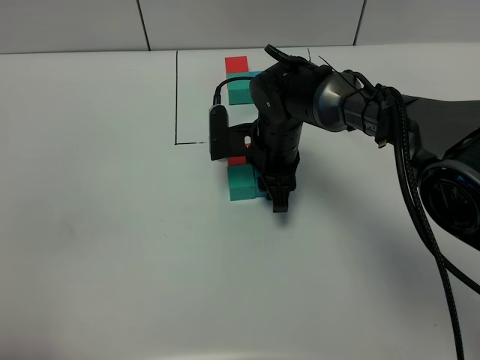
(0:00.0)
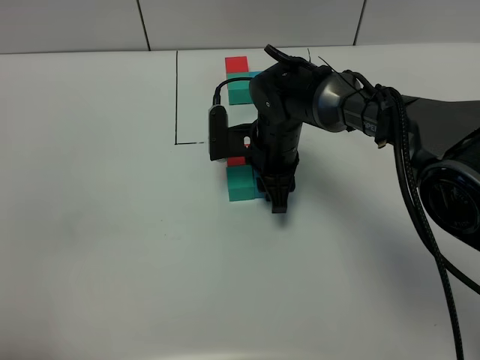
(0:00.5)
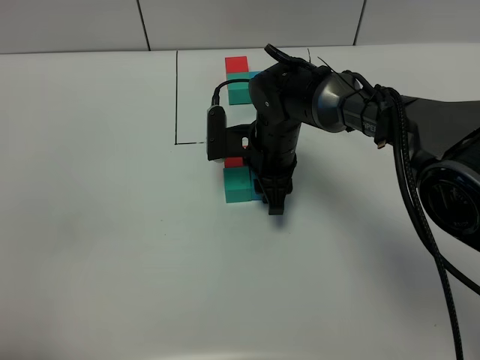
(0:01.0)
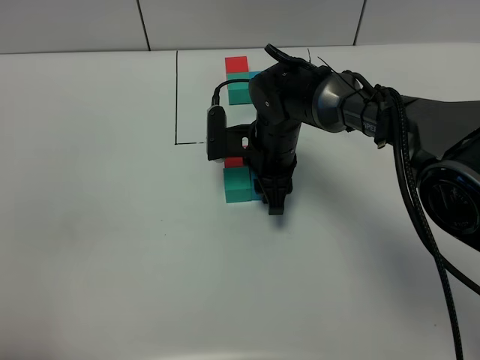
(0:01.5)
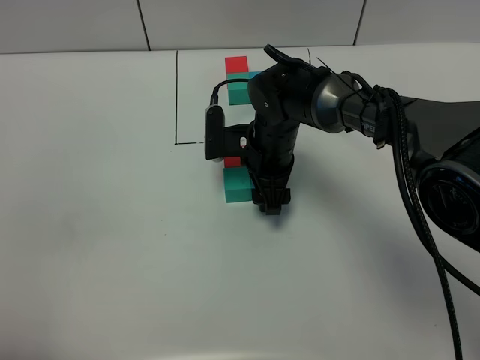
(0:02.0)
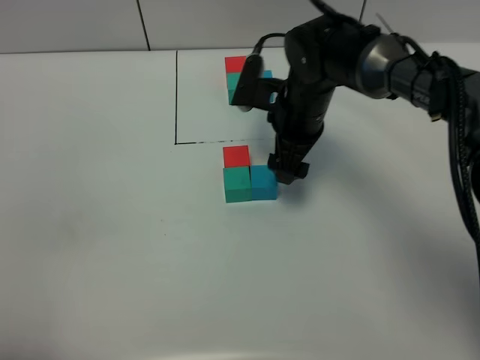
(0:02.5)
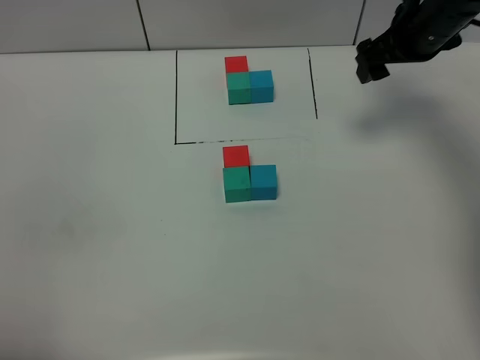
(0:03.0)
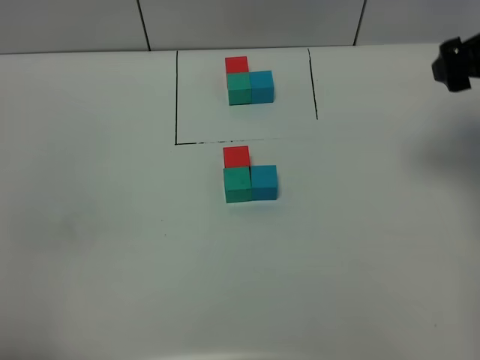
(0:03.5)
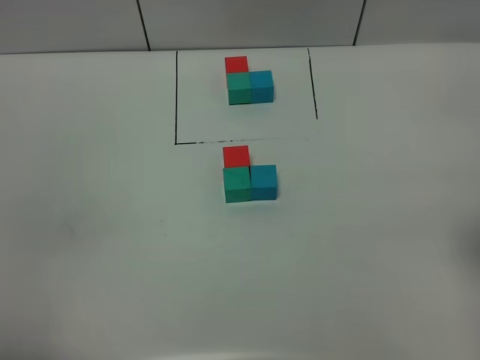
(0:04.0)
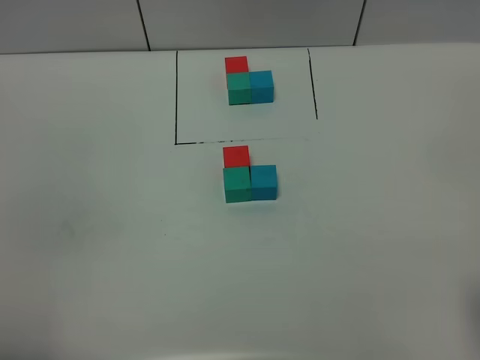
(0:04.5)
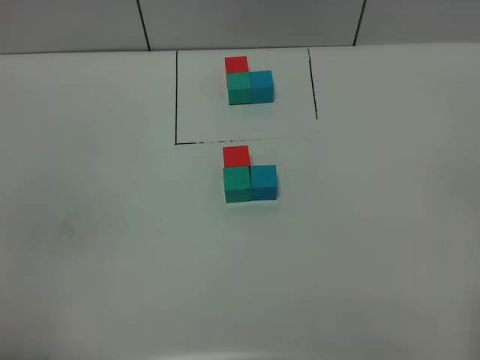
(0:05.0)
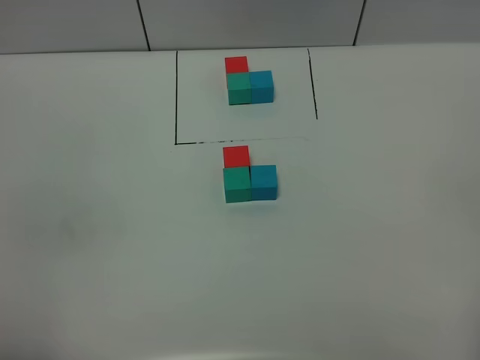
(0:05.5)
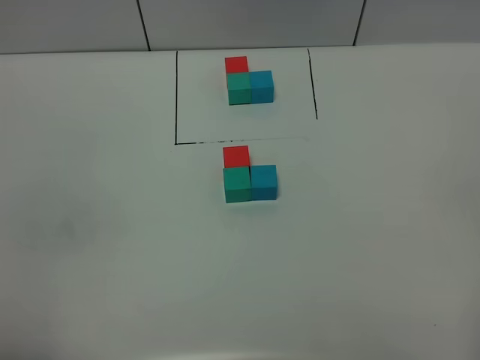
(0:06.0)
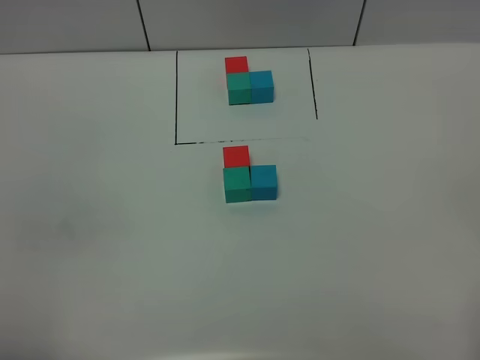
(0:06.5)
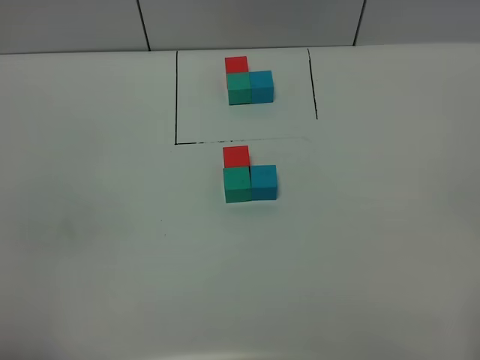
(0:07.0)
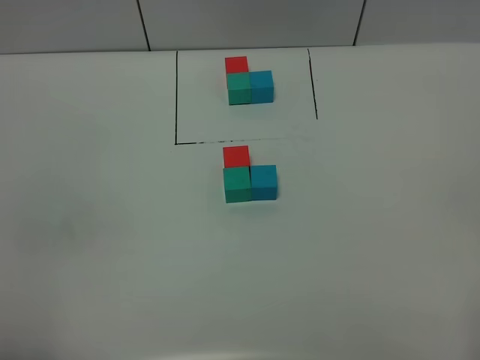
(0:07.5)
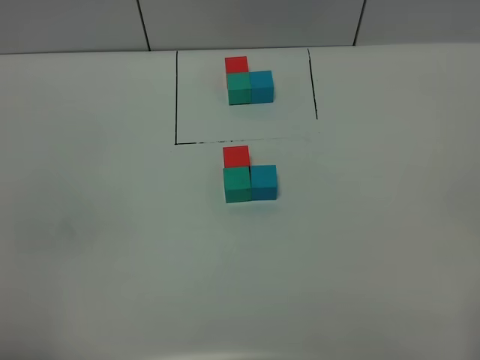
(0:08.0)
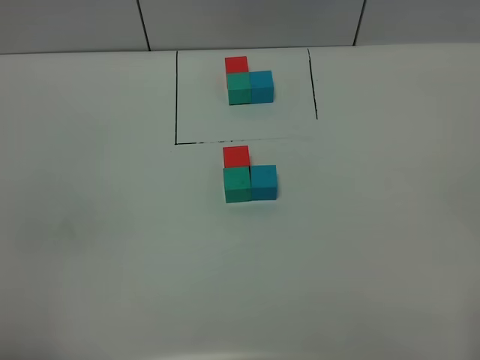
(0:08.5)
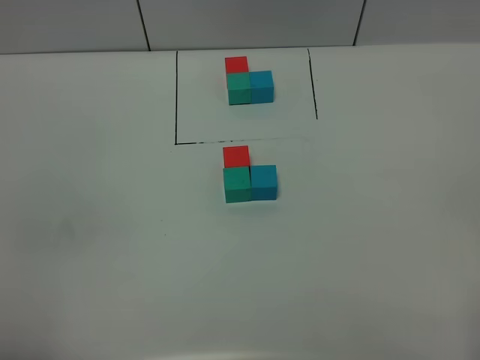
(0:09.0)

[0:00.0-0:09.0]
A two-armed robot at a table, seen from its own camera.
Task of the whole recording: According to the building block template in front, assemble the scattered blocks together.
Step, 0:00.0 to 0:02.0: Put the blue build block on the right of the green build block.
0:00.0 to 0:02.0: The right gripper opens its fingers.
0:02.0 to 0:04.5: The right gripper heads backward, to the right and upward, covering some 40 cm, and opens.
0:07.0 to 0:09.0: The two grippers keep their place.

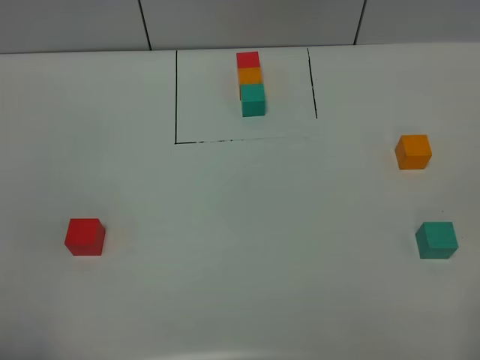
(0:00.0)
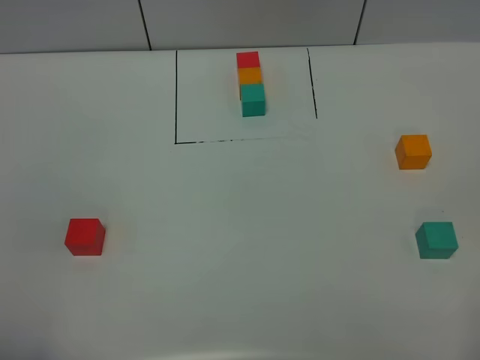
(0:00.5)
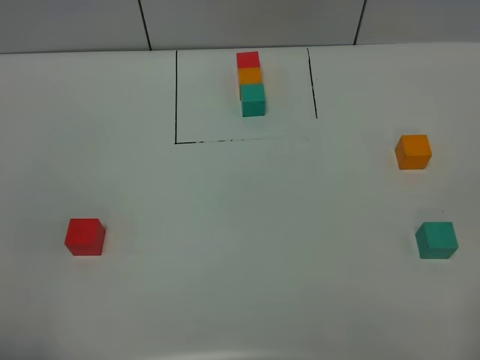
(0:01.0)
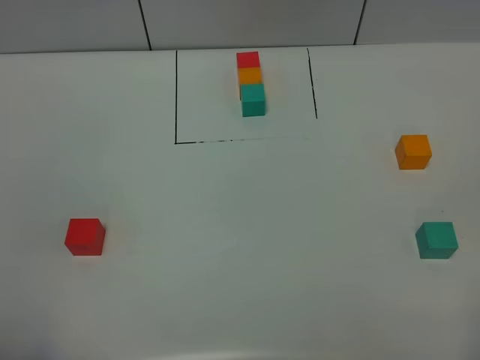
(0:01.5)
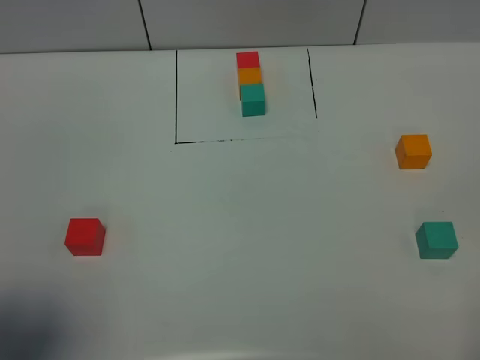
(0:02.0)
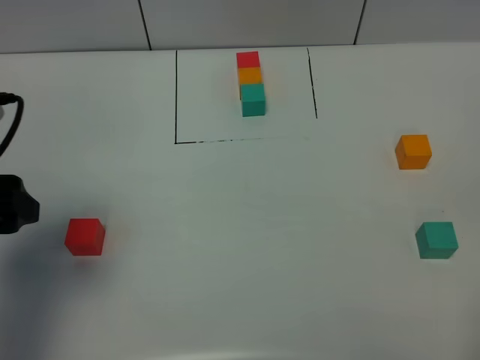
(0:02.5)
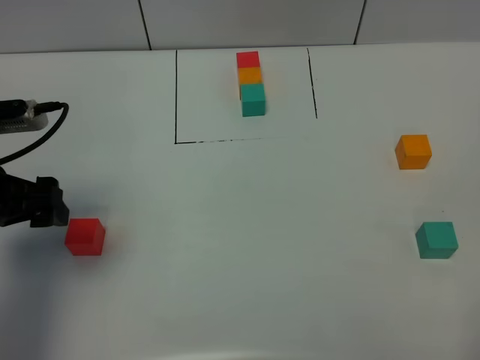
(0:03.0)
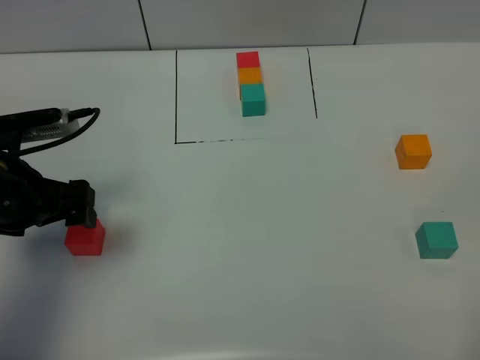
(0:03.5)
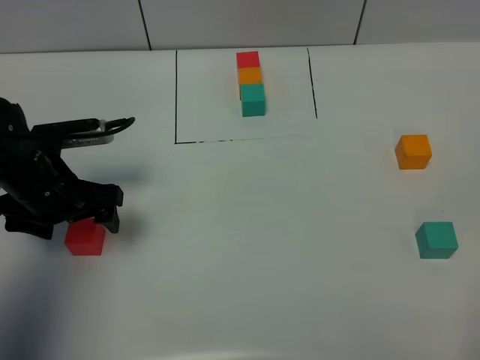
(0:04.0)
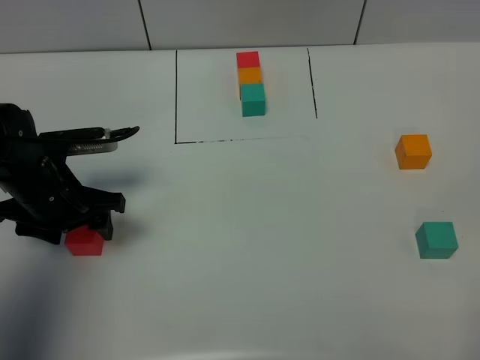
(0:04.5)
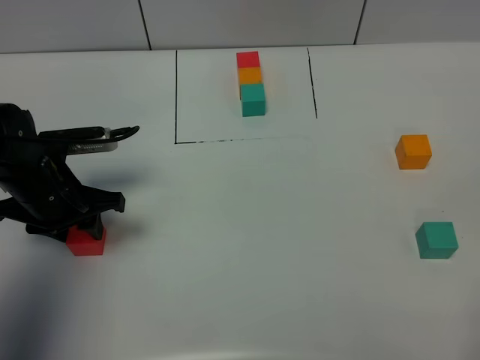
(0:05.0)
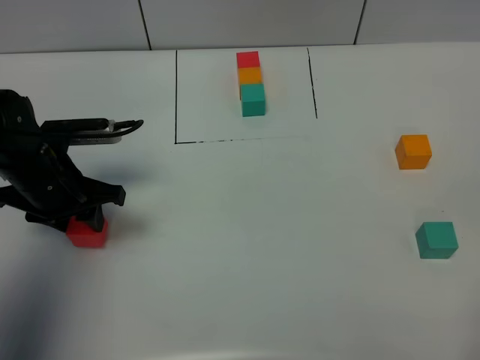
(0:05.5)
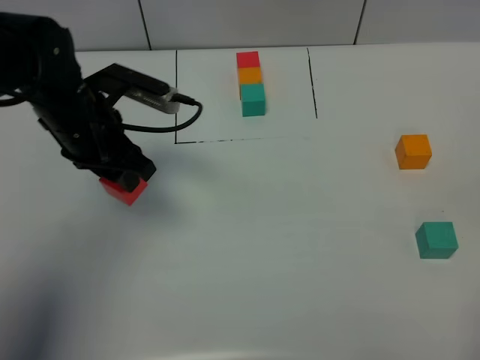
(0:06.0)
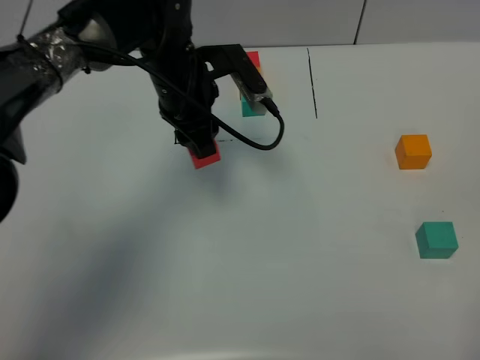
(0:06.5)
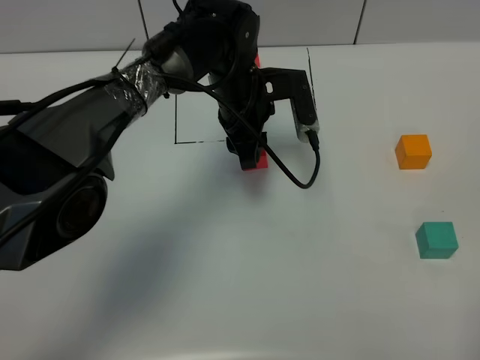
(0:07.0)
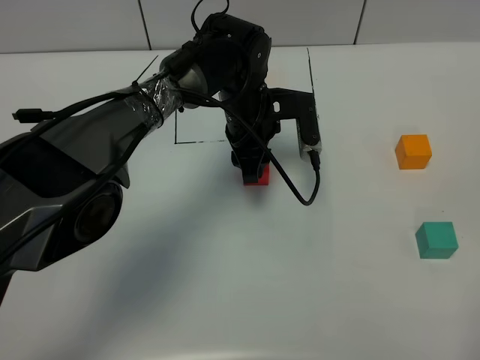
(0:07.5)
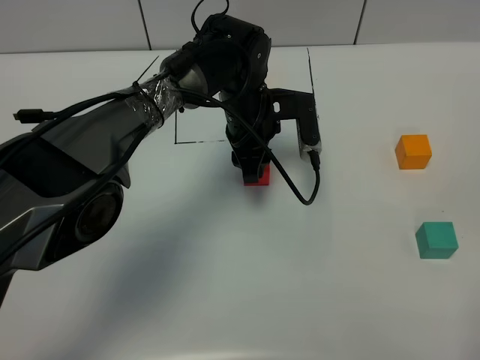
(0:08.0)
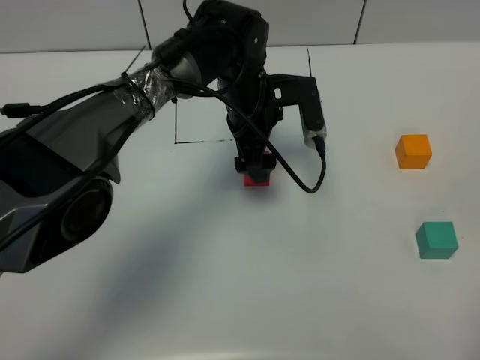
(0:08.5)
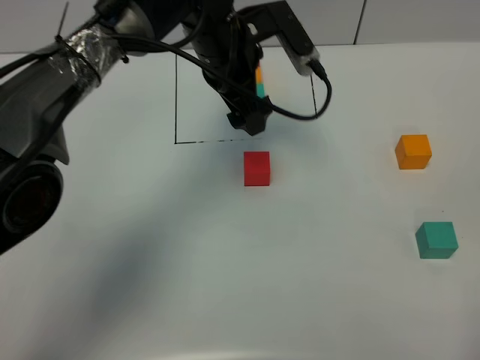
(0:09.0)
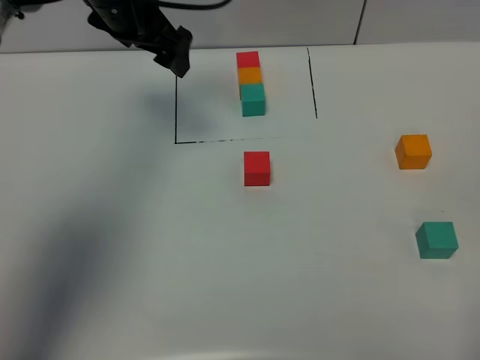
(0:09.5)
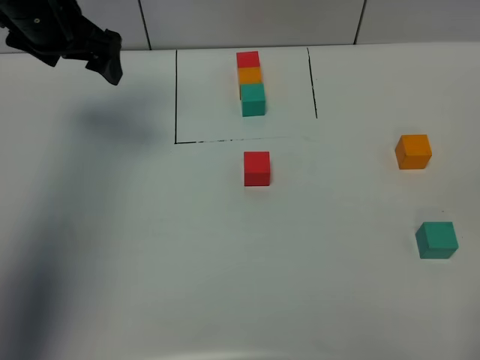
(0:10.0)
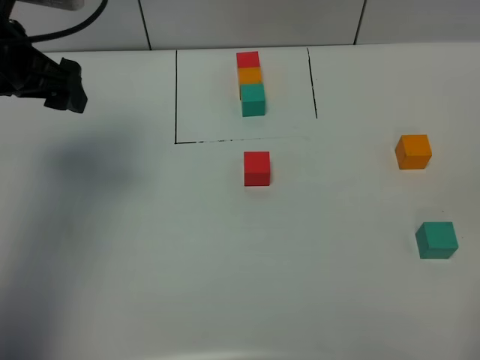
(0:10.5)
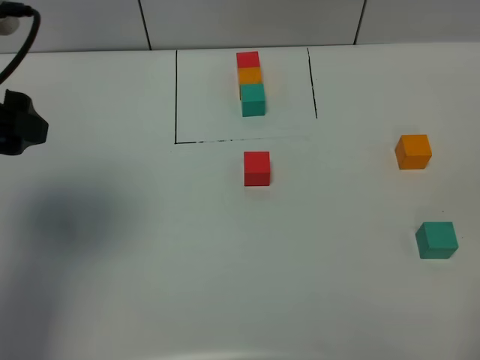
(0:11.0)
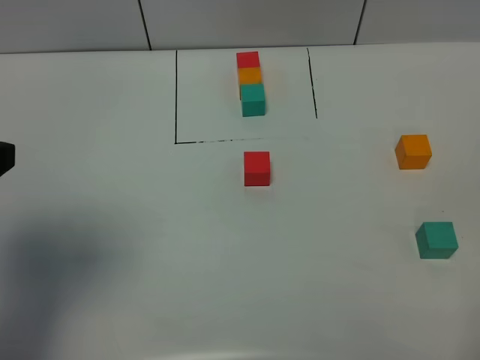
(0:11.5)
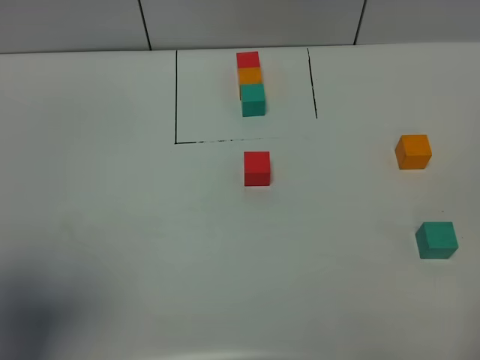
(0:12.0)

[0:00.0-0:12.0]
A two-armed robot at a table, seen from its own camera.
Task of the whole recording: According to the building block template in front, assemble the scattered blocks together.
Step, 0:00.0 to 0:08.0: Put the red build block in the center of the table.
0:00.0 to 0:02.0: The left gripper is displaced forward by some 10 cm.
0:02.0 to 0:04.0: The left gripper shifts some 30 cm forward and downward.
0:04.0 to 0:06.0: The left gripper travels to the right and upward by about 10 cm, and closes up.
0:06.0 to 0:08.0: The left gripper goes some 20 cm to the right, downward and forward.
0:08.0 to 0:10.0: The left gripper heads to the left and upward, covering about 30 cm, and opens its fingers.
0:10.0 to 0:12.0: The left gripper heads backward, covering some 35 cm.

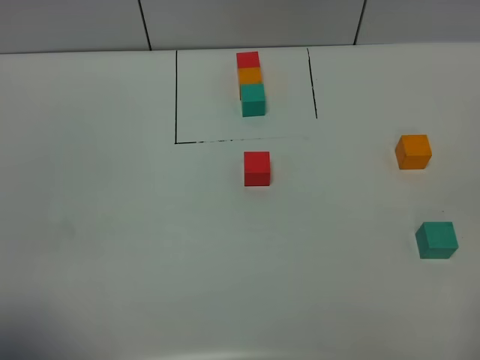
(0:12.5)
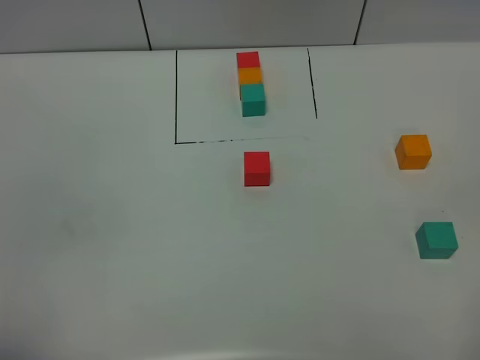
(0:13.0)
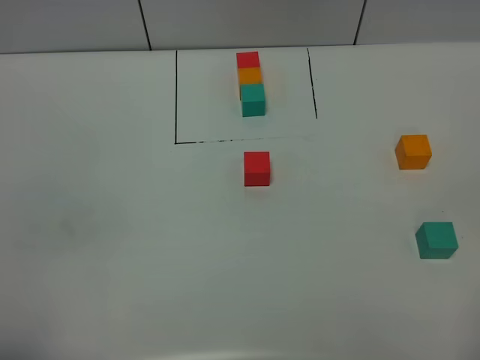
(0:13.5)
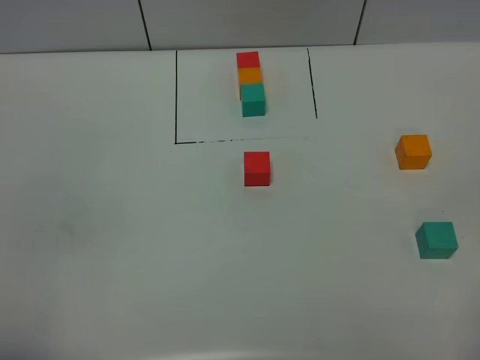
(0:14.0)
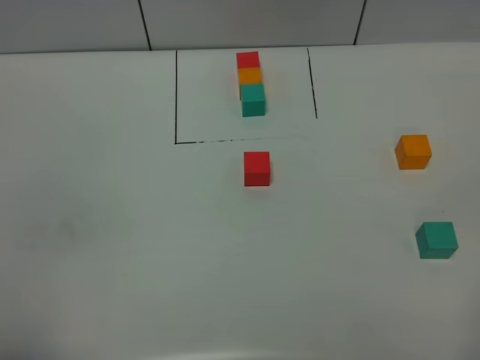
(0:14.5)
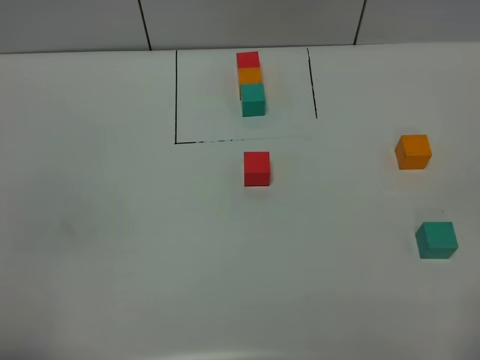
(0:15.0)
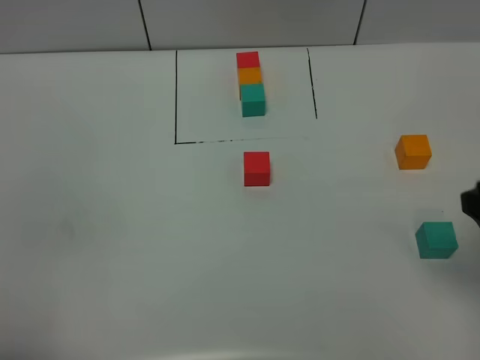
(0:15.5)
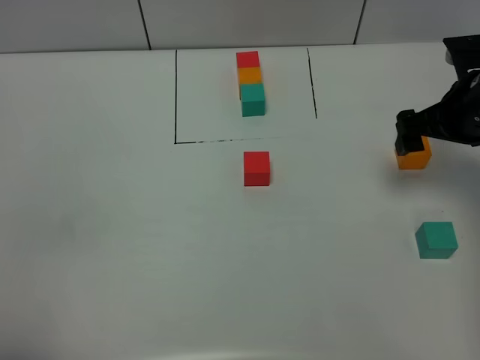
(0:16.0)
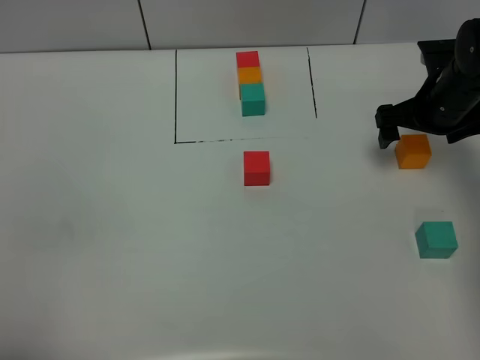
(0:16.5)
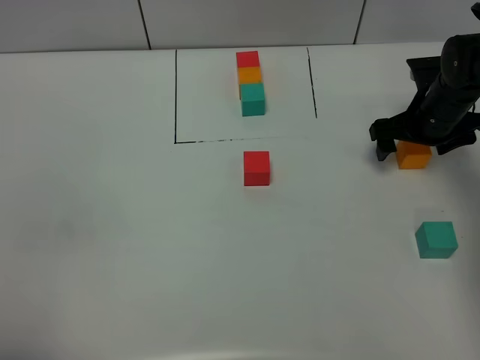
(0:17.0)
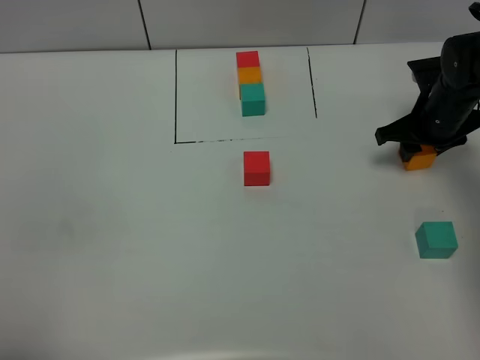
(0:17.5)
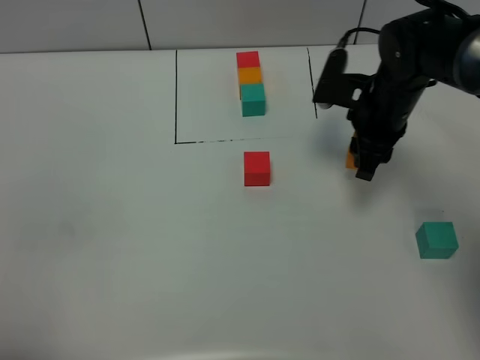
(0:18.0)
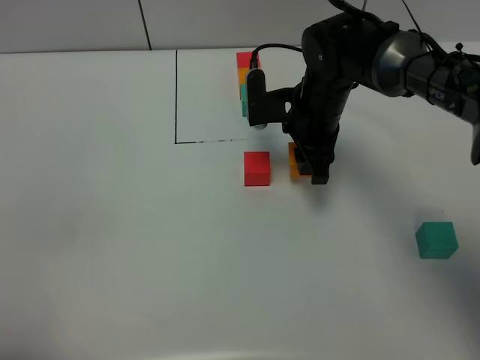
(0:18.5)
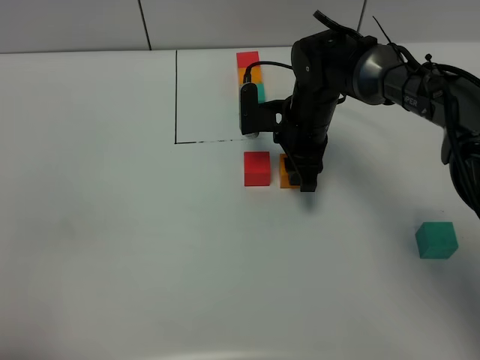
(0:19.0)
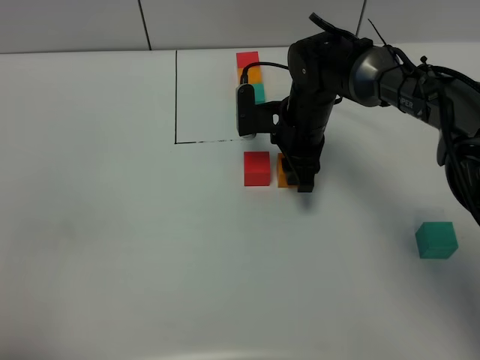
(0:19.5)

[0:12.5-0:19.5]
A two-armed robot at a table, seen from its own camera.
Task of the whole recording: According to the building block template in front, assemble the scattered blocks together.
0:14.5 to 0:16.0: The right gripper travels forward by some 35 cm.
0:16.0 to 0:17.5: The right gripper travels downward and forward by about 10 cm, and closes up.
0:17.5 to 0:19.5: The right gripper shifts roughly 20 cm to the left.
